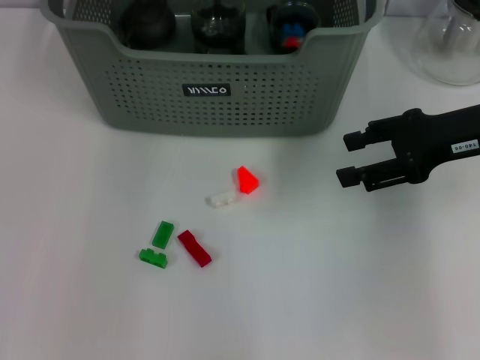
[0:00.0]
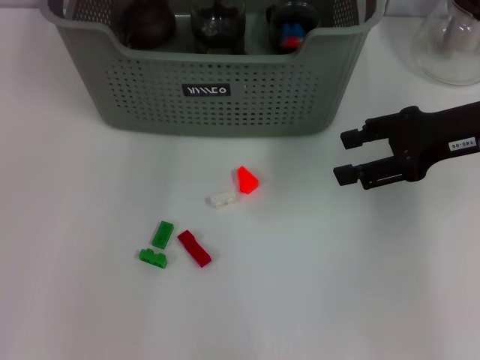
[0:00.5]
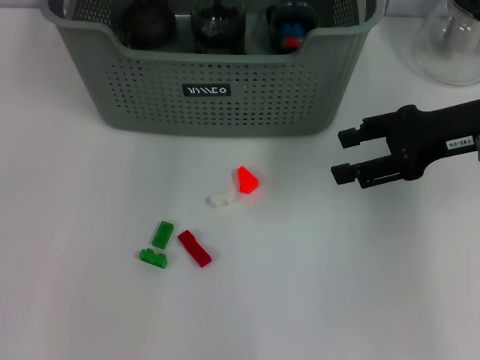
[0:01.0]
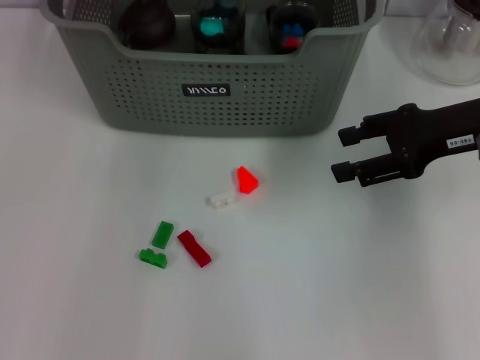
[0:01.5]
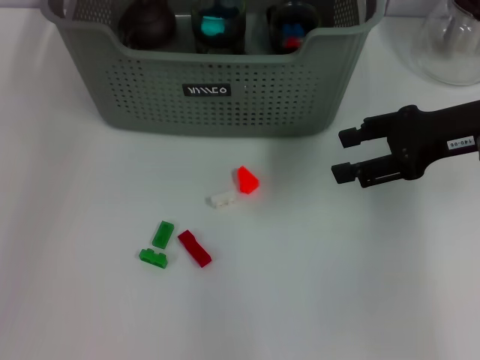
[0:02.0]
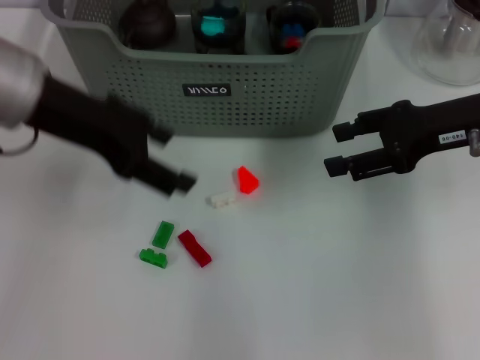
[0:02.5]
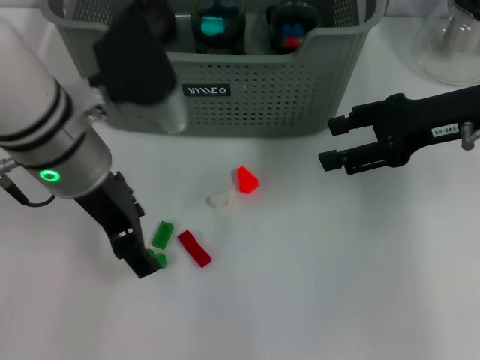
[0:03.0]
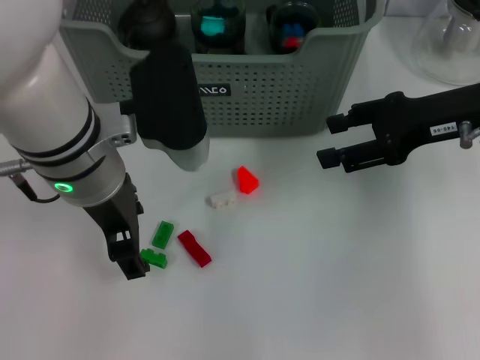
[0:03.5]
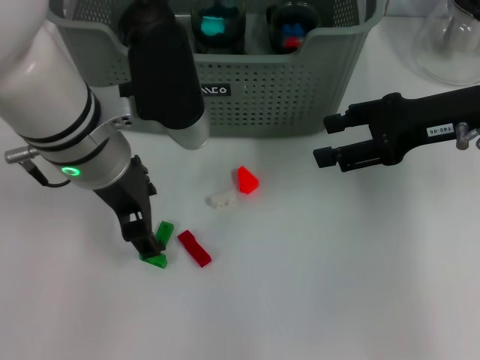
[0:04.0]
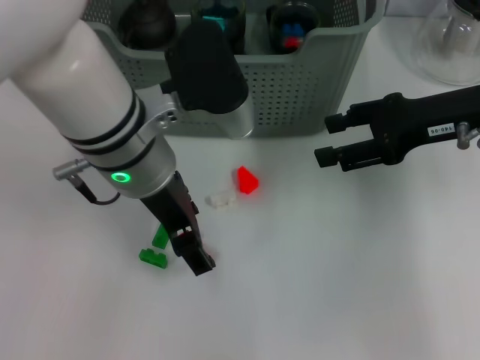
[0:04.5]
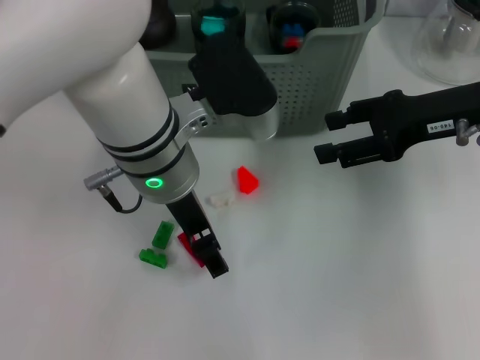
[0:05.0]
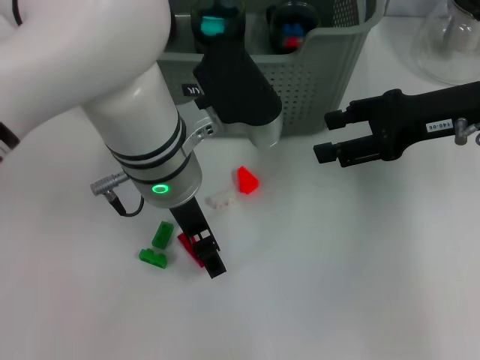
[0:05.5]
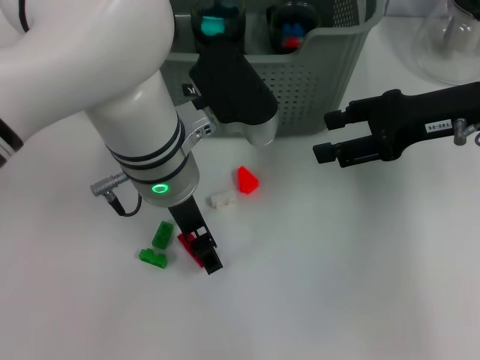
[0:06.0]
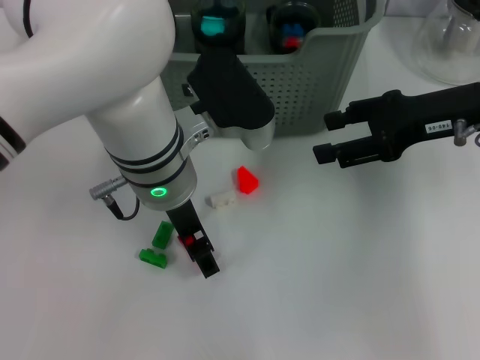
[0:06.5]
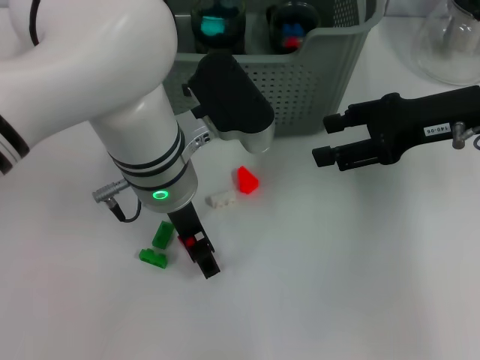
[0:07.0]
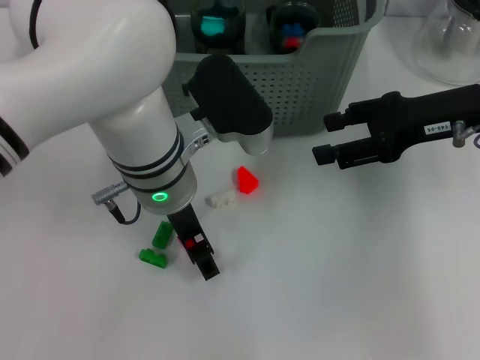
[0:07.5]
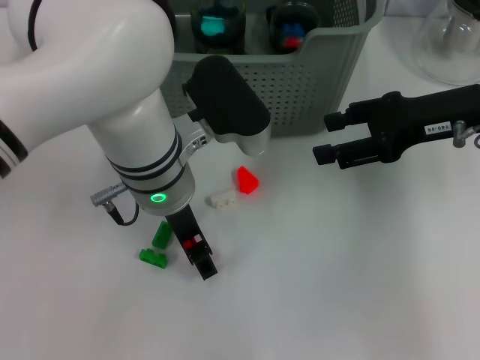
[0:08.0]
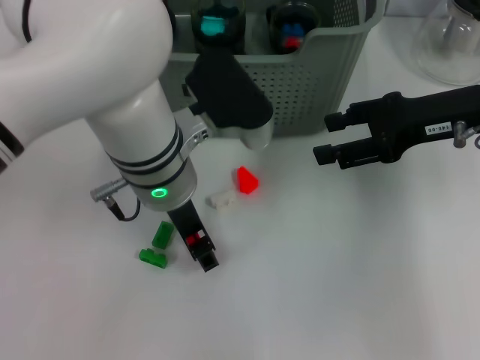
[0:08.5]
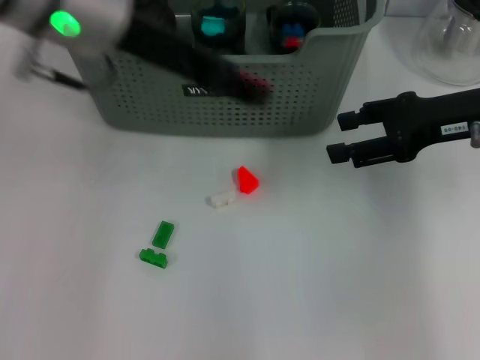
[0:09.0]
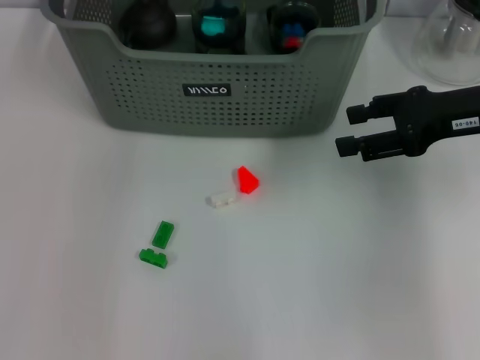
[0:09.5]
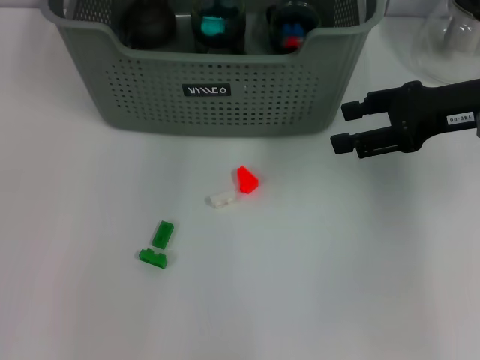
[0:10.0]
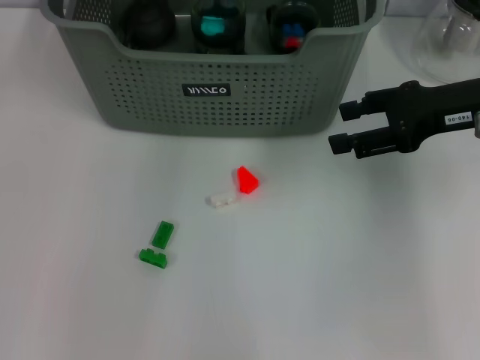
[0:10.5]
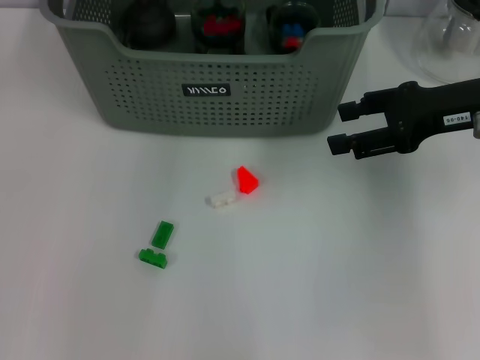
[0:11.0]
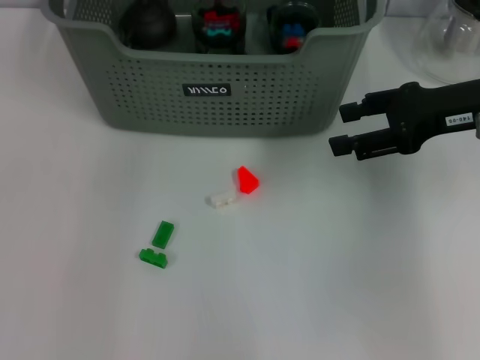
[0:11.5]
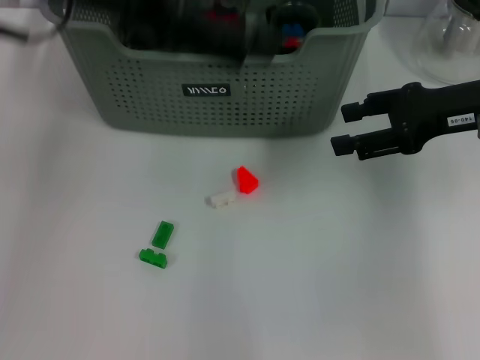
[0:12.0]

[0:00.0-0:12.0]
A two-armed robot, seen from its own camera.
Task of the whole recording: pick up the teacup on the table and place it into the storage bin, pick up the block on the table and place it into the storage bin.
Step, 1.5 to 8.0 s: Grasp the red block with left gripper.
Step, 8.5 to 11.0 s: Place the red block in the storage box with left gripper.
0.0 to 2.0 s: The left gripper goes some 15 cm backward and to the left, and opens up.
2.0 to 4.0 s: The left gripper is displaced downward and to the right by approximately 15 cm.
4.0 to 6.0 s: The left gripper shifts approximately 5 cm to the right.
6.0 to 8.0 s: The grippers make only small movements.
8.0 to 10.0 s: The left gripper shifts about 20 cm forward and upward.
10.0 to 12.0 s: The left gripper is displaced backward and to the left by some 20 cm.

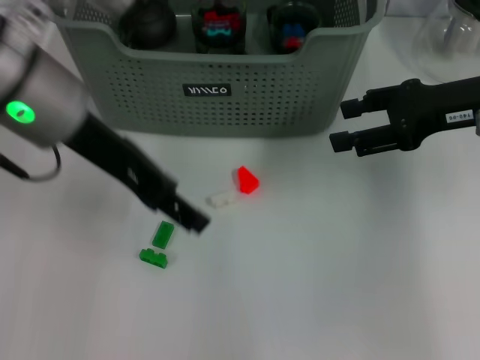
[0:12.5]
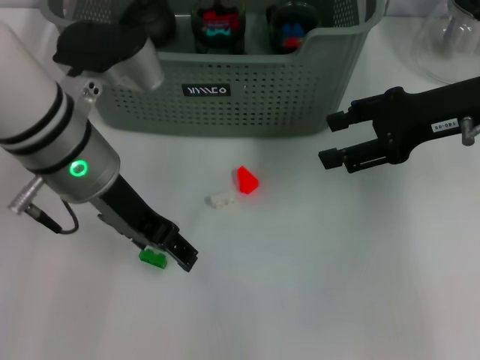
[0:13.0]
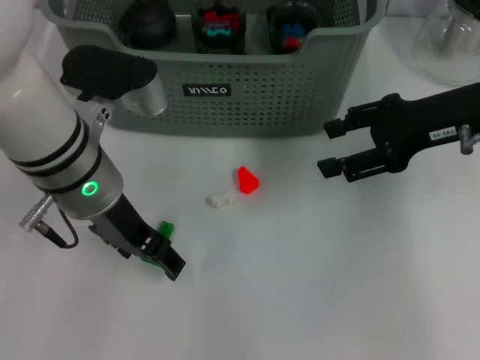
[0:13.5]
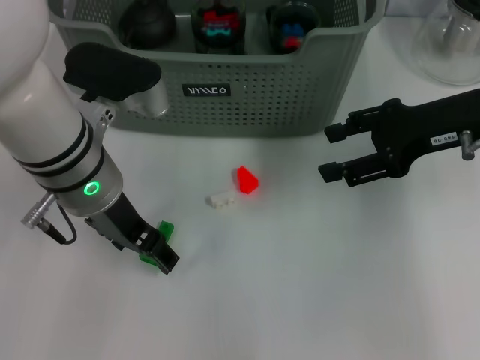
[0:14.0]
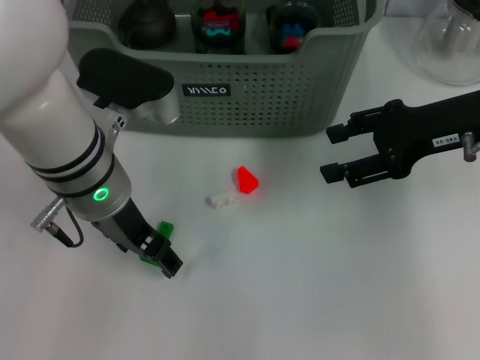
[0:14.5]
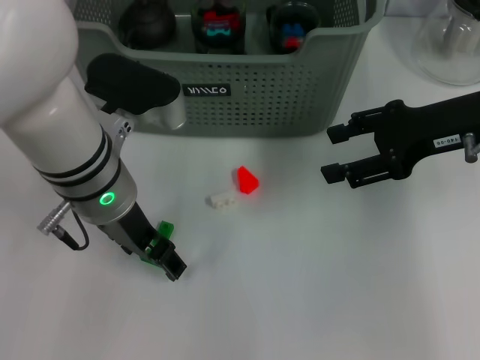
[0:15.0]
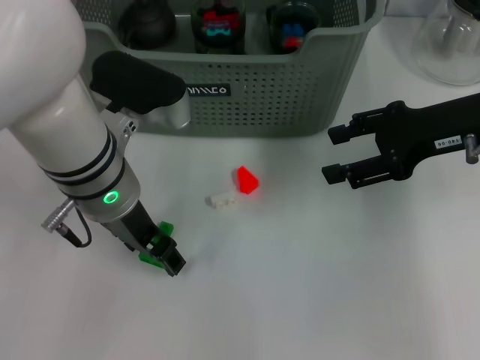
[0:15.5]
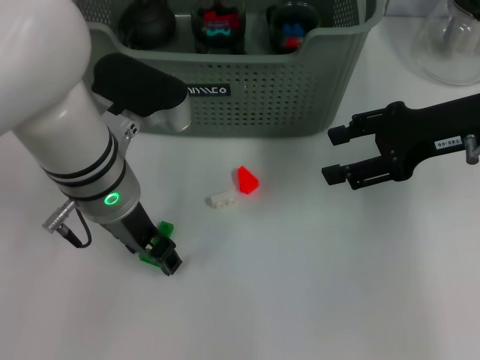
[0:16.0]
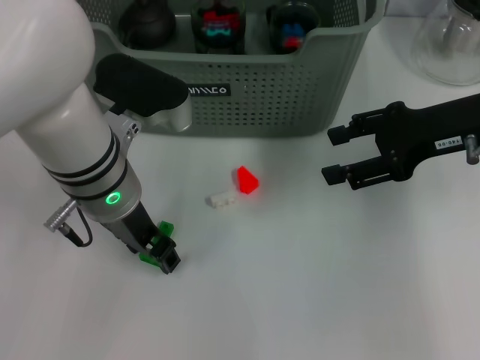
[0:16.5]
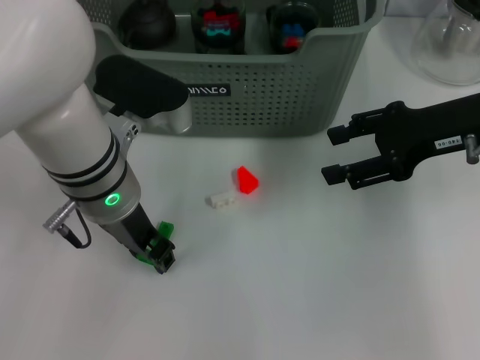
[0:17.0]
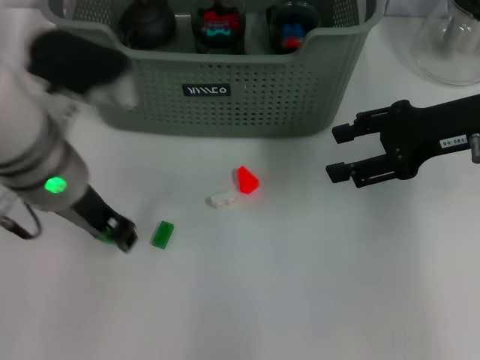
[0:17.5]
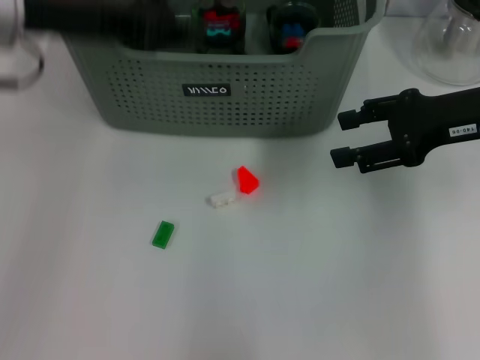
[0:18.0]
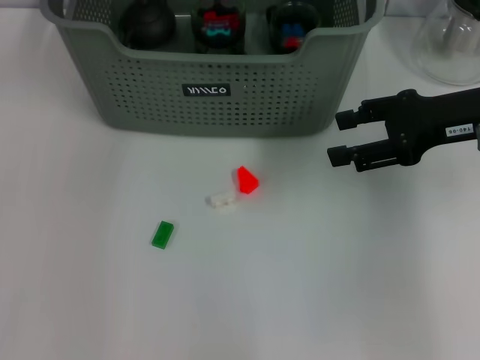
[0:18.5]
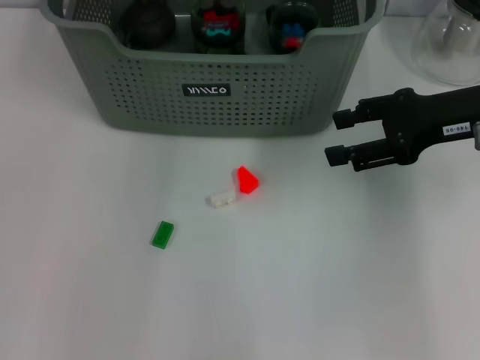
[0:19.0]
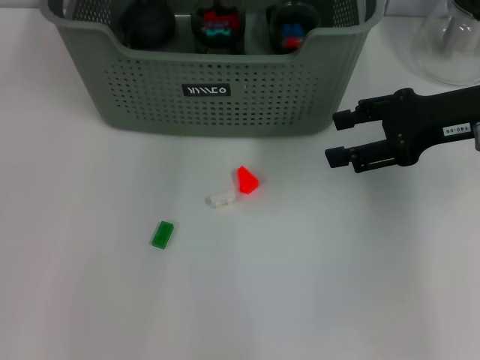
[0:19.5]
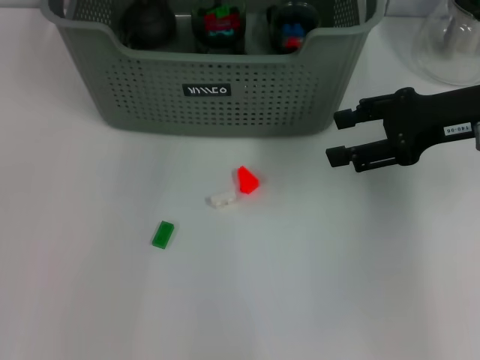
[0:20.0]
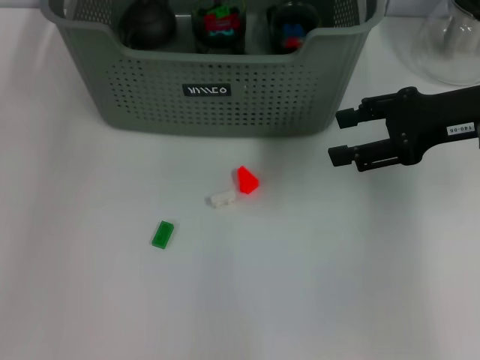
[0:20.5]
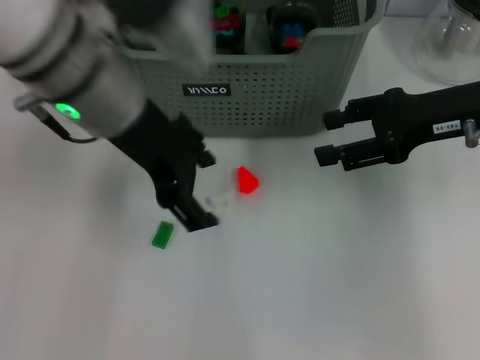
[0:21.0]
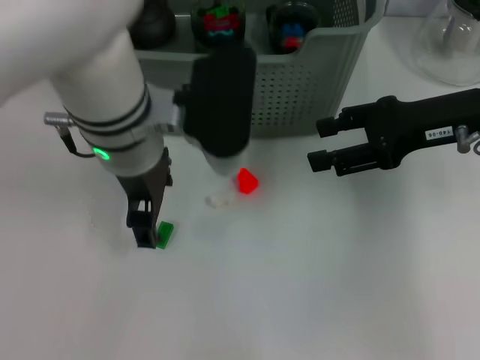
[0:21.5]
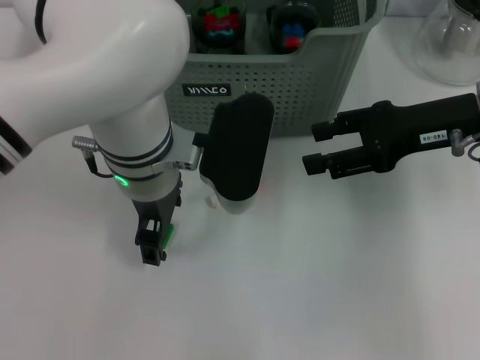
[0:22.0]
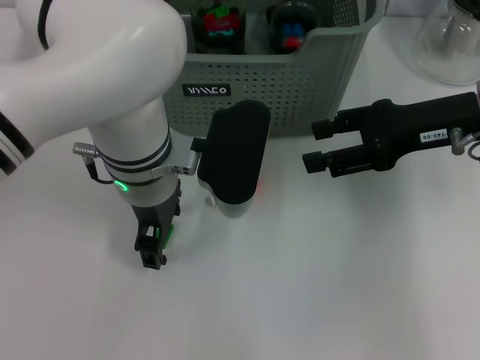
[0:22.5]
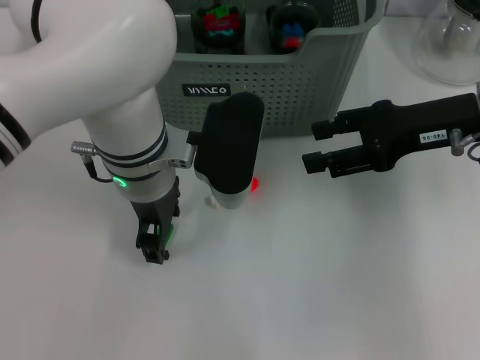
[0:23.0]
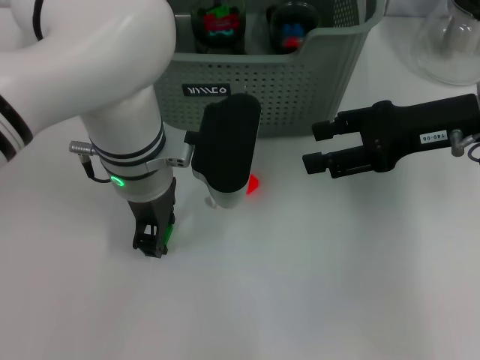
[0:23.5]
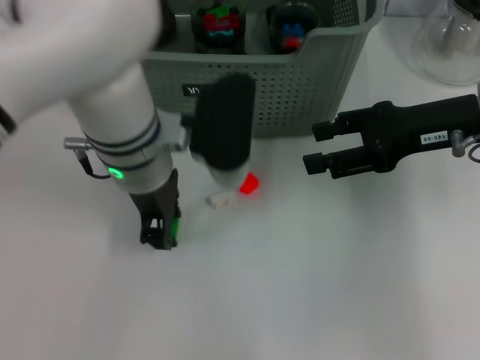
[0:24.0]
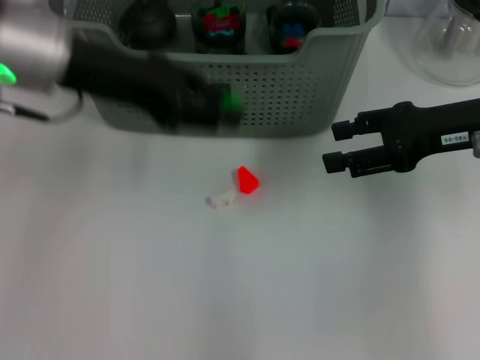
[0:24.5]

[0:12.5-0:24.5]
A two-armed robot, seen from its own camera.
Task of the whole recording: pick up the teacup on the table and place it into the storage bin, pick up the block on the table and place it into the storage bin.
Step, 12.5 to 17.0 s: Grasp the green block with left gripper.
Step, 17.5 to 20.0 s: Place the green block in the storage box with left gripper.
Step, 20.5 to 23.5 s: Grasp the green block with left gripper.
12.5 to 14.5 s: The left gripper goes some 10 cm downward.
14.5 to 16.5 s: The two grippers keep their place.
16.5 to 18.5 s: The left gripper shifts some 20 cm upward and forward.
20.5 to 22.5 s: The left gripper is displaced downward and to the right by roughly 20 cm.
22.5 to 24.5 s: The left gripper shifts approximately 15 cm to the left and upward, and closes up.

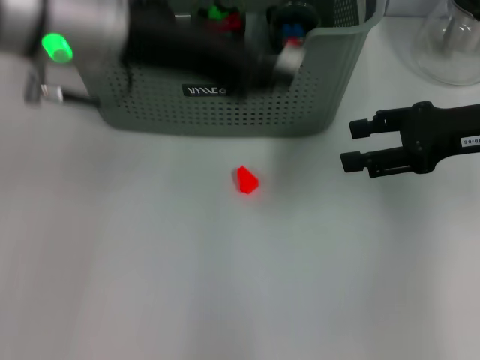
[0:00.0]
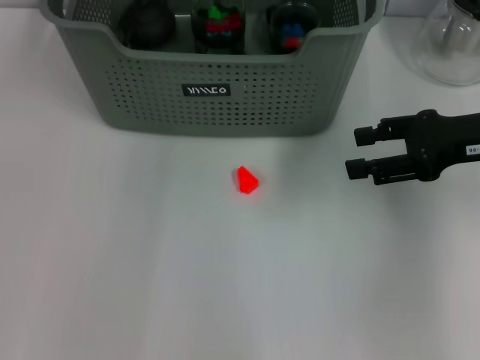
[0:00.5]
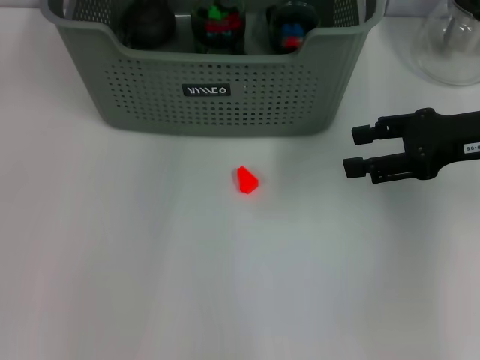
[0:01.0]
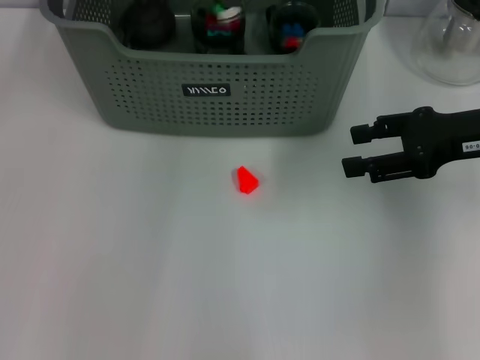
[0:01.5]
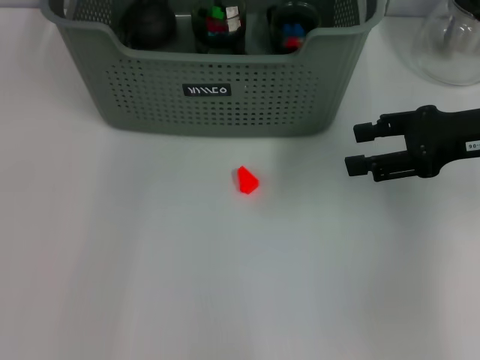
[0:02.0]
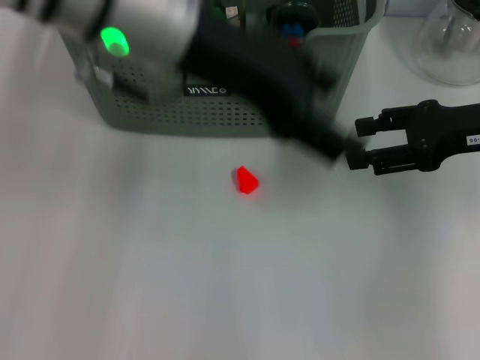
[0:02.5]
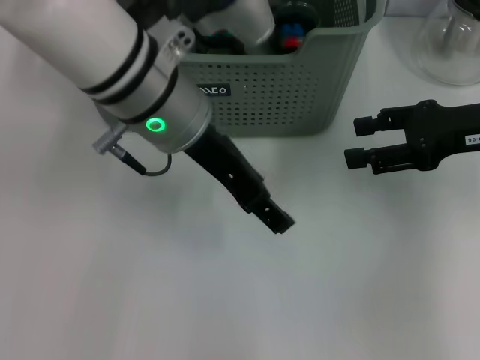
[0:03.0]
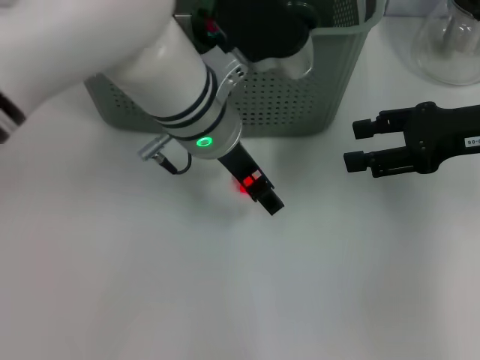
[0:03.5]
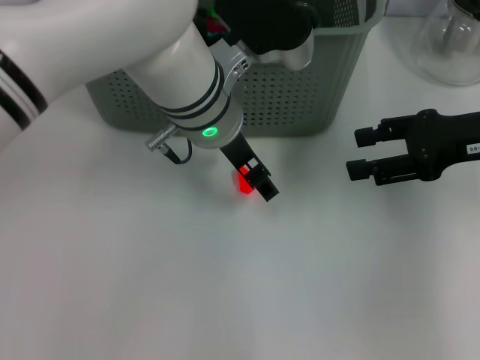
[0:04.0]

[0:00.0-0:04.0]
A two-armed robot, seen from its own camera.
Task of the whole recording: pick up the teacup on the table and place it into the storage bin, pick up the block on the table and place it into the storage bin.
Step, 0.0 to 1.5 s: Place the white block in the storage box with left gripper.
0.0 to 2.0 s: The left gripper is displaced forward by approximately 10 cm, and opens.
2.0 to 4.0 s: The left gripper heads downward, to the right and backward, covering some 15 cm.
